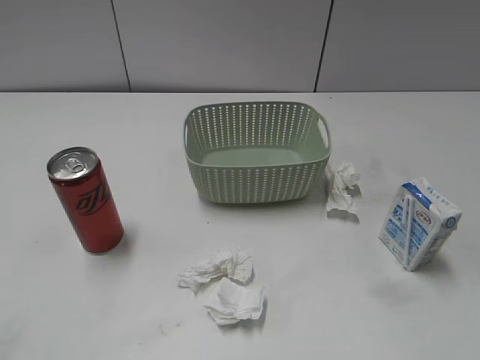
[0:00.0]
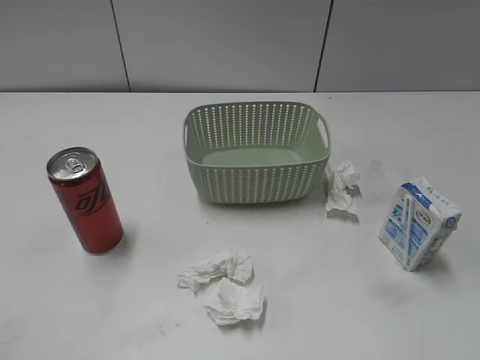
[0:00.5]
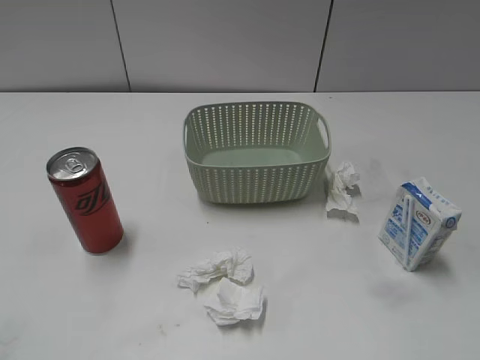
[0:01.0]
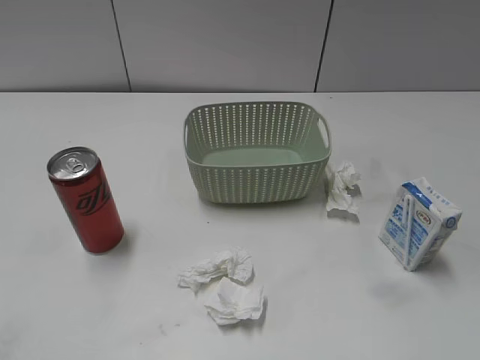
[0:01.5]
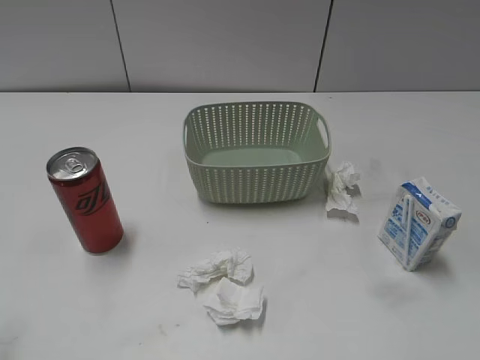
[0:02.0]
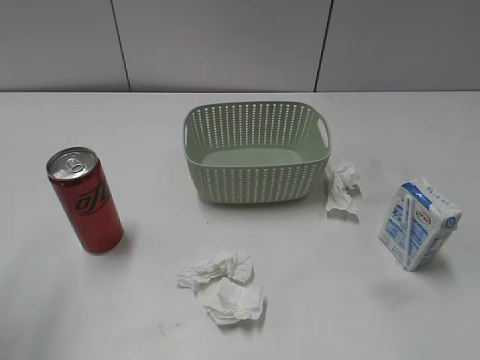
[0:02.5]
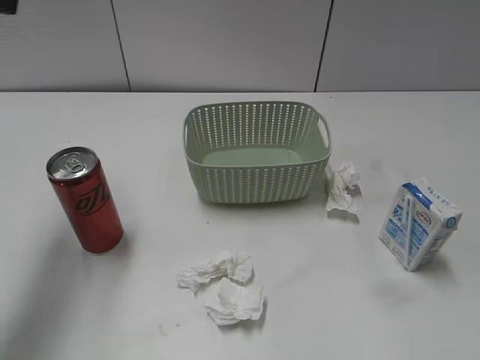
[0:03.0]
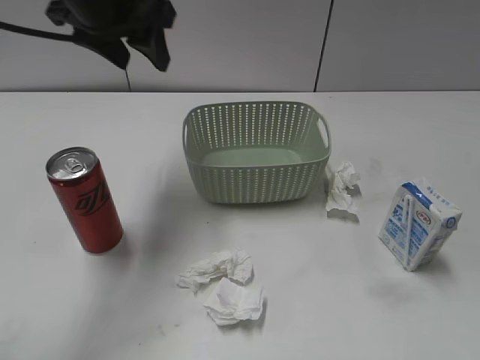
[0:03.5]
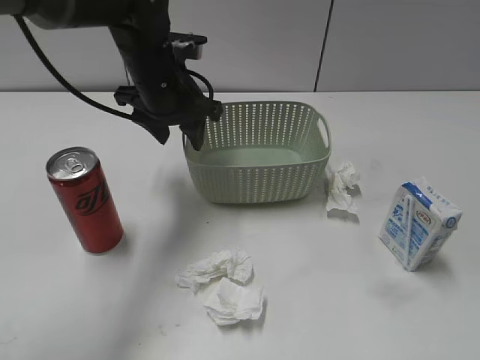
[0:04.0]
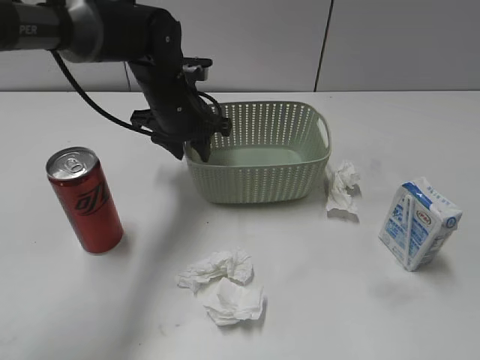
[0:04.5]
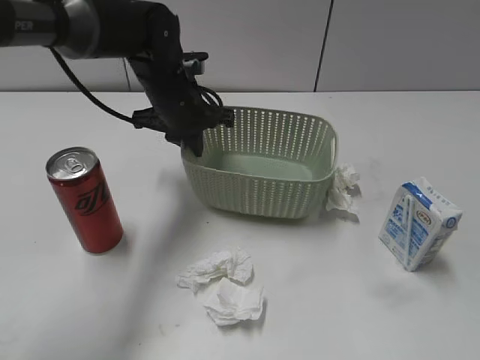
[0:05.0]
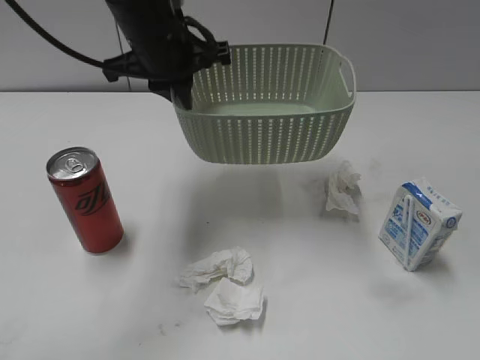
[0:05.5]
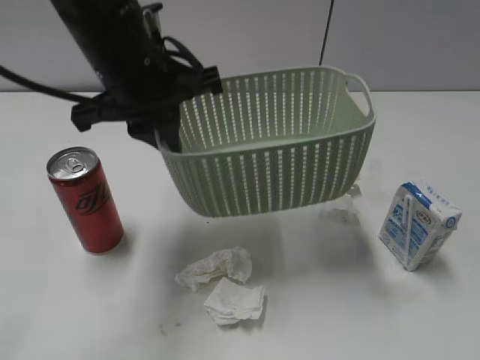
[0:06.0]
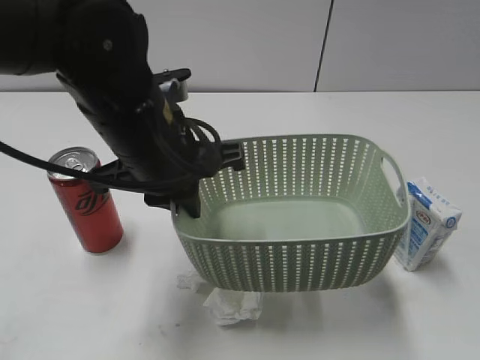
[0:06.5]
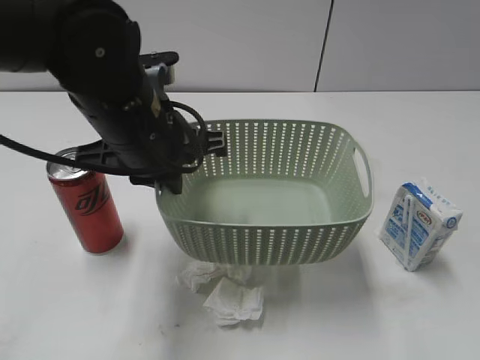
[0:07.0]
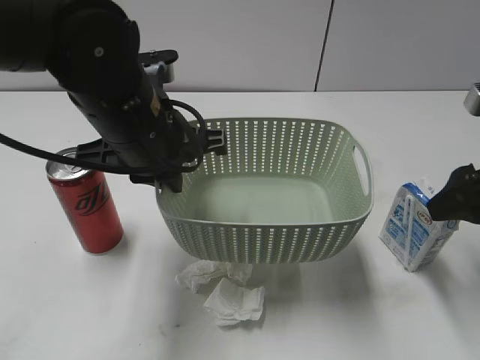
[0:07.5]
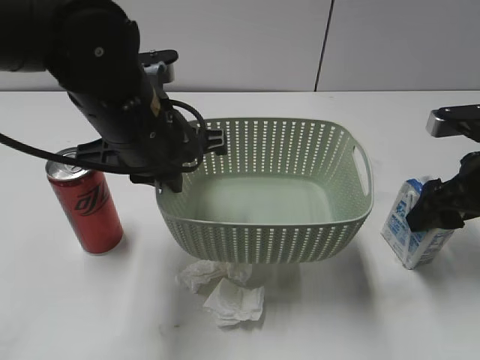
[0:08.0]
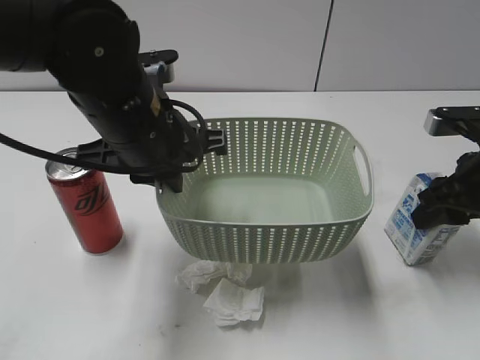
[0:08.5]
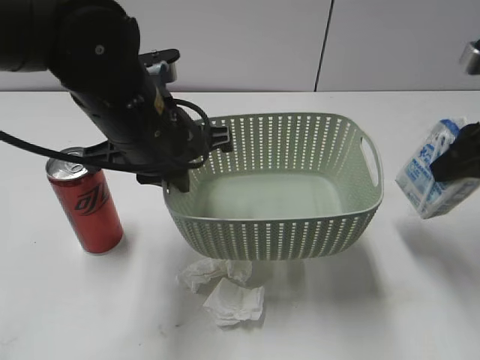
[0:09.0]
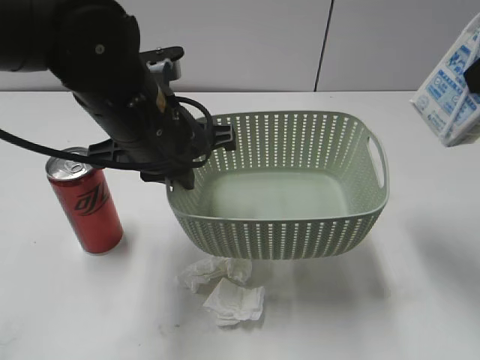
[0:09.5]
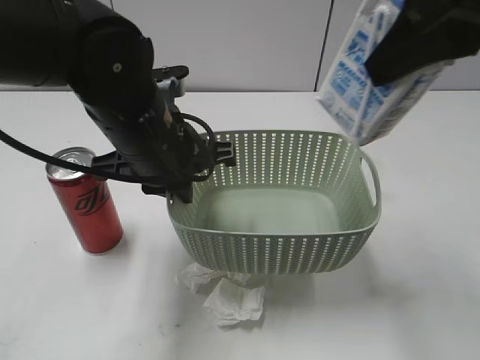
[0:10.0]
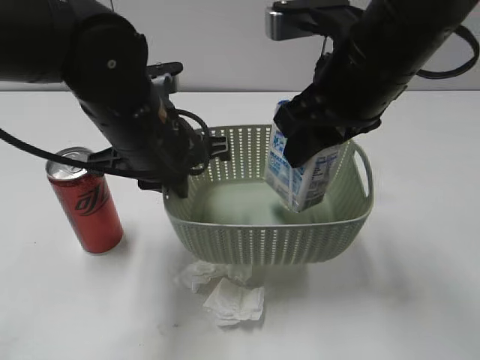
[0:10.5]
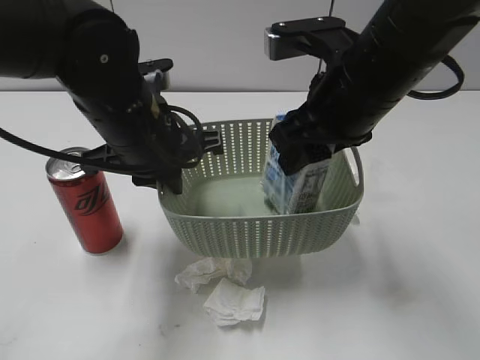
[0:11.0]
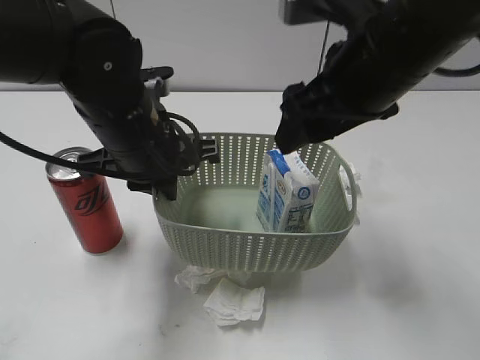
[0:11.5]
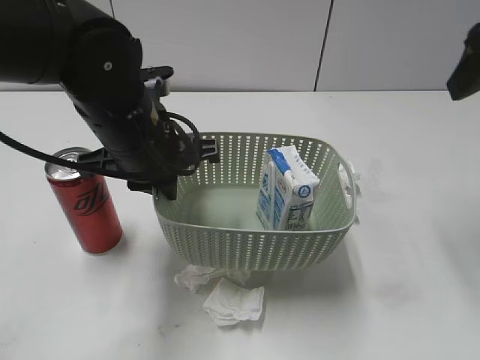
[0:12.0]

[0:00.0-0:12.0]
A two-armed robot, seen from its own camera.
Step, 0:03.0 to 0:04.5: Grasp the basket with left gripper.
Step, 0:05.0 to 0:07.0: Lift the basket with left gripper.
Step, 0:07.5 to 0:08.0: Grasp the milk with right gripper.
Step, 0:08.5 to 0:11.5: Place the milk in the basket with right gripper.
0:02.0 to 0:04.0: The left gripper goes approximately 40 cm forward, to the right and downward.
0:04.0 to 0:06.0: The left gripper shifts roughly 15 cm backward and upward, and closes up.
0:06.0 to 0:08.0: The right gripper travels forward and downward by approximately 30 cm.
0:08.0 to 0:10.0: The right gripper moves upward and to the left, about 25 cm, and closes up.
0:10.0 to 0:12.0: The right gripper is displaced to the right and forward by roughly 10 cm, and opens.

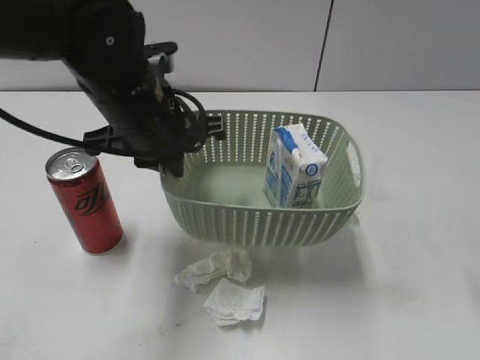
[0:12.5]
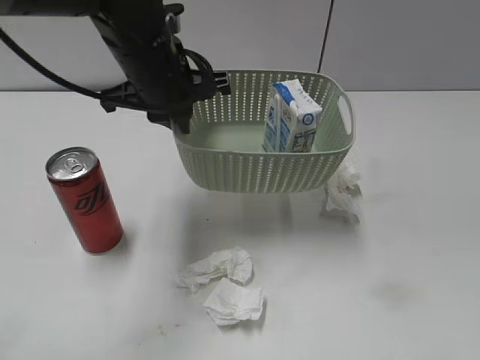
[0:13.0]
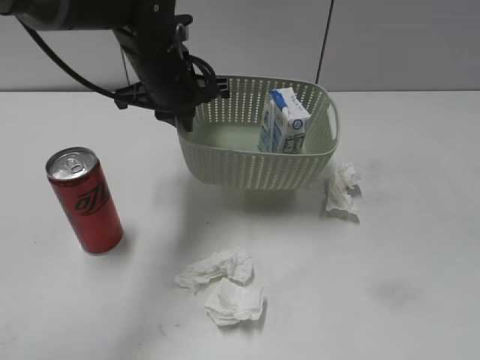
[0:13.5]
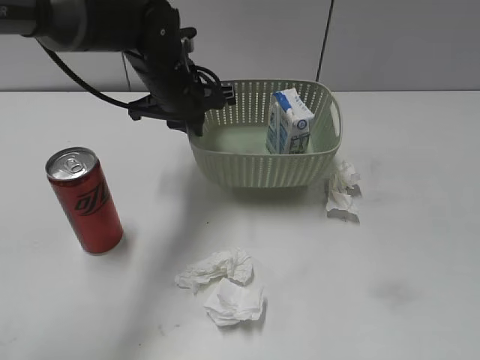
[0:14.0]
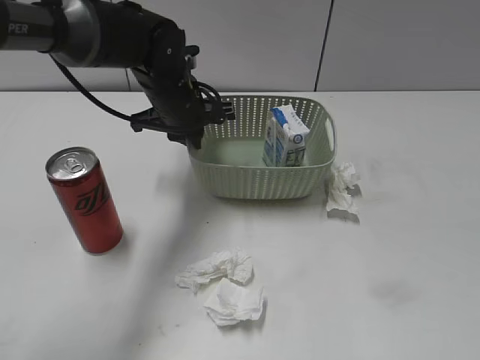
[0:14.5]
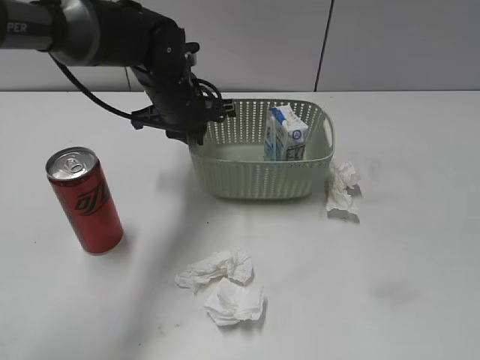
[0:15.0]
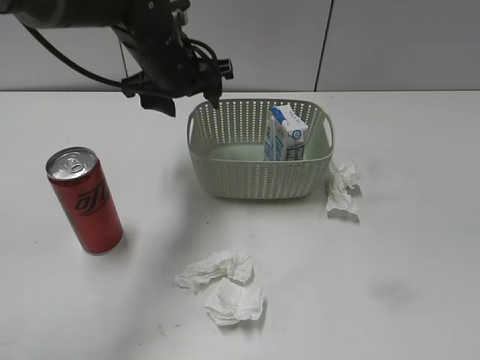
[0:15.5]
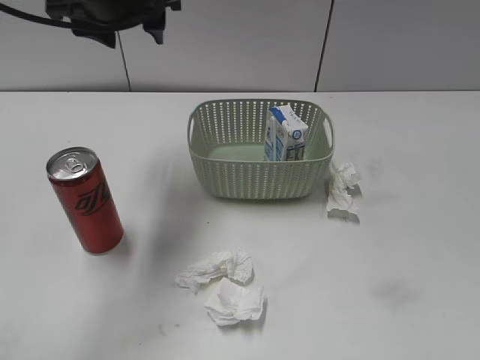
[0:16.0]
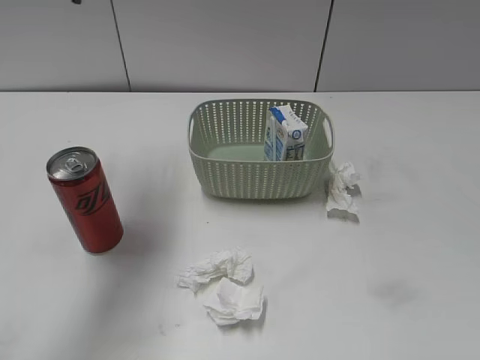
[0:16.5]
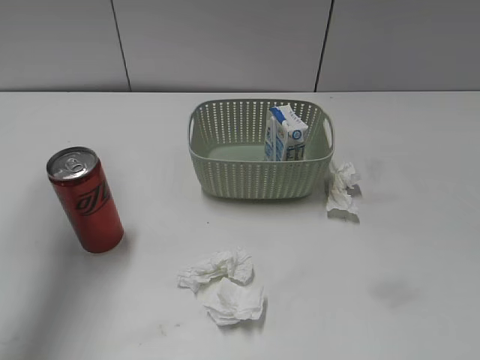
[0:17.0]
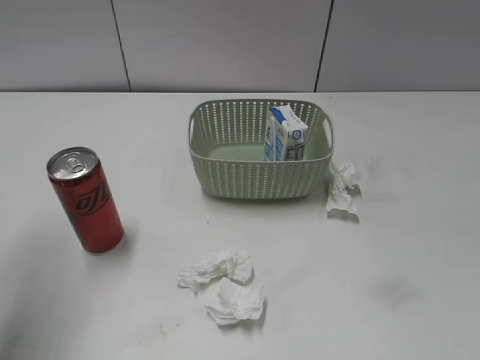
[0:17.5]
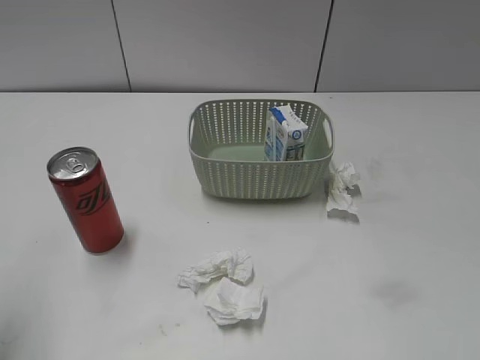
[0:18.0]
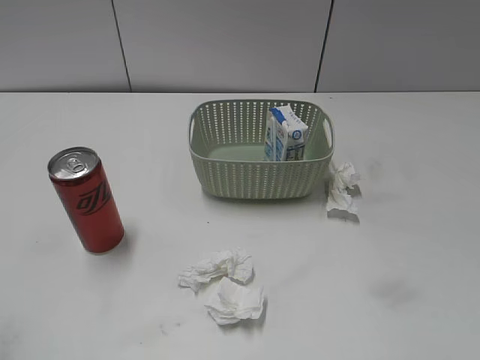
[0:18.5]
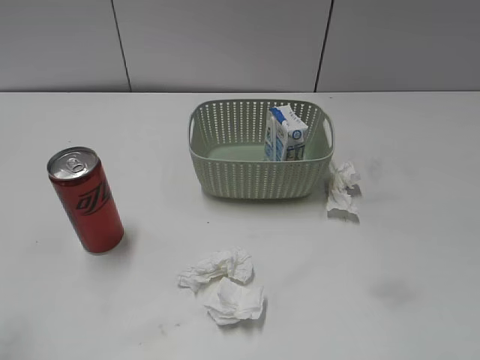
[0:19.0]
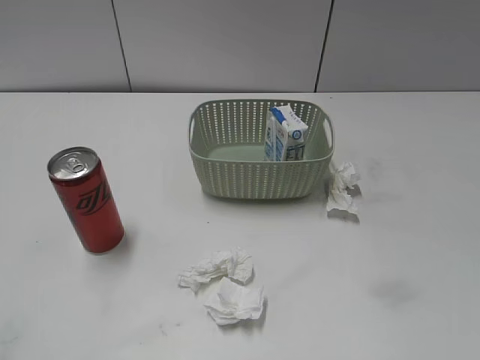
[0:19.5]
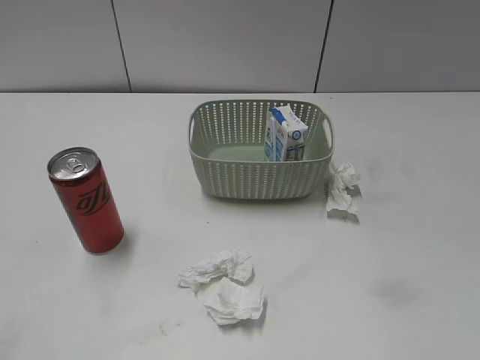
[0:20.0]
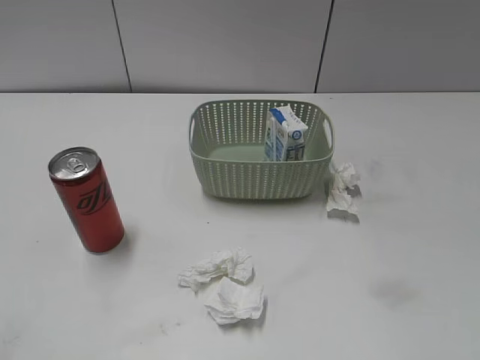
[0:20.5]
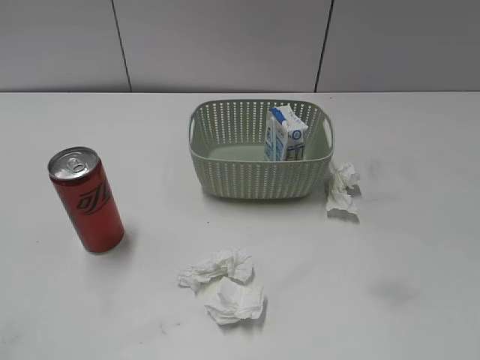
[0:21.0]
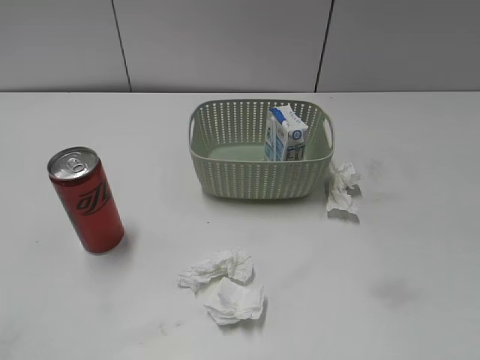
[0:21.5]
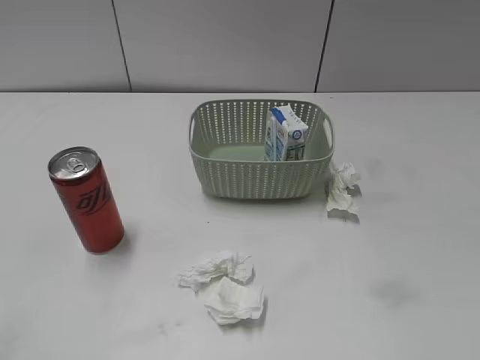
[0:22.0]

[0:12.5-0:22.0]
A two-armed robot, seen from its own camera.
Step, 0:12.5 to 0:15.0: Place the basket on the table with left gripper.
0:12.5 to 0:14.5: The right gripper heads backward, covering roughly 20 cm. Meanwhile the left gripper is displaced forward and downward by roughly 15 cm.
0:14.5 to 0:16.5: The left gripper heads upward and to the left, covering some 25 cm, and opens up.
0:16.5 to 0:18.0: The left gripper shifts about 25 cm backward and to the left, and closes, then reopens.
0:18.0 to 0:20.0: The left gripper moves backward and downward, roughly 20 cm.

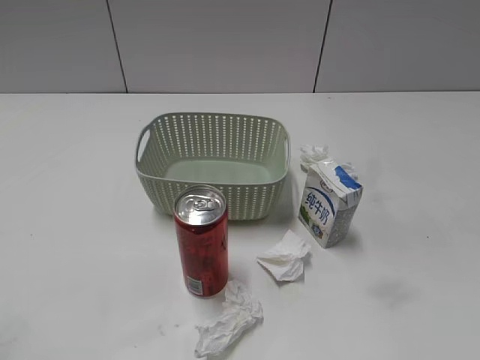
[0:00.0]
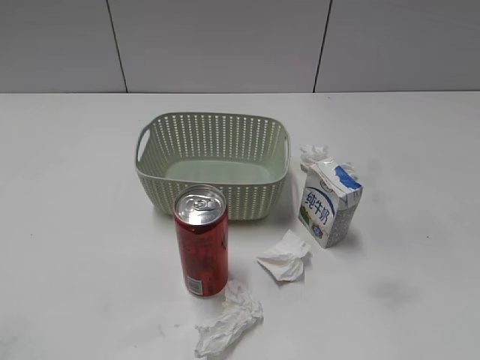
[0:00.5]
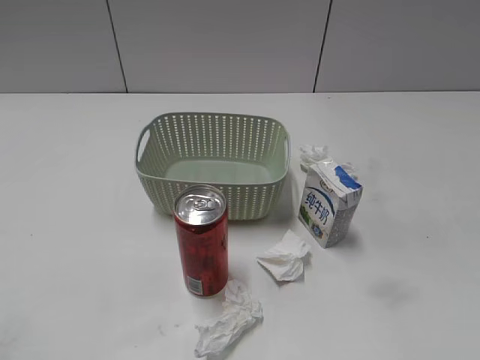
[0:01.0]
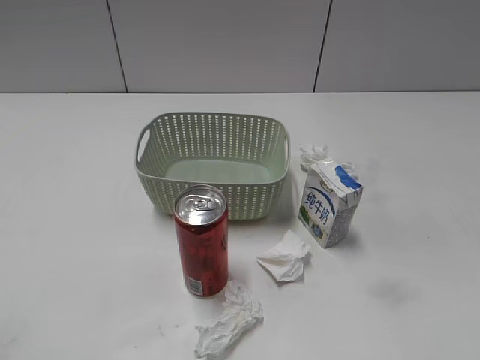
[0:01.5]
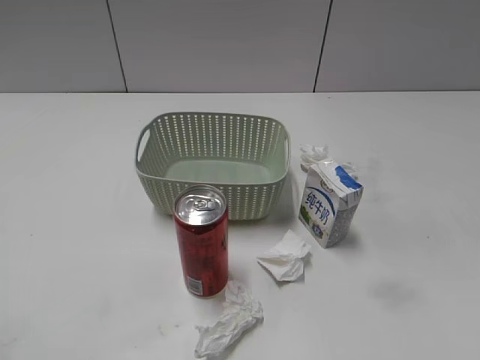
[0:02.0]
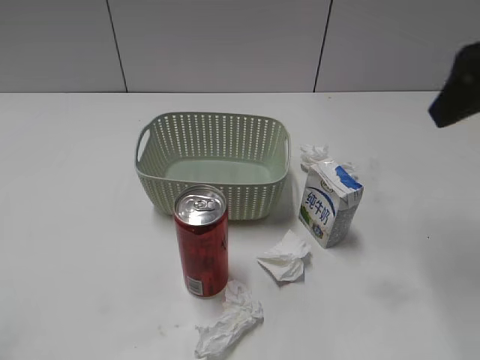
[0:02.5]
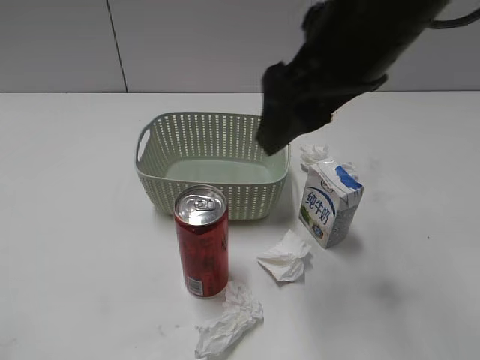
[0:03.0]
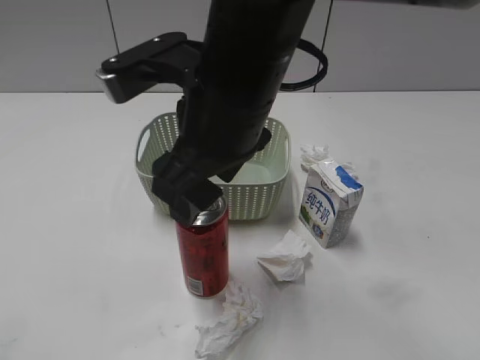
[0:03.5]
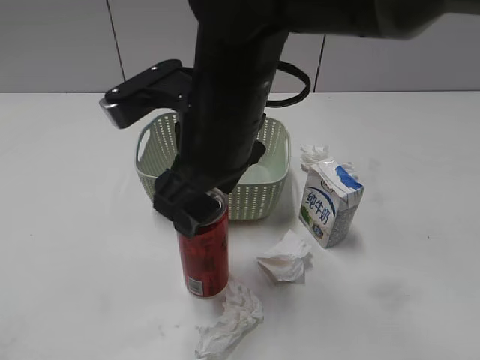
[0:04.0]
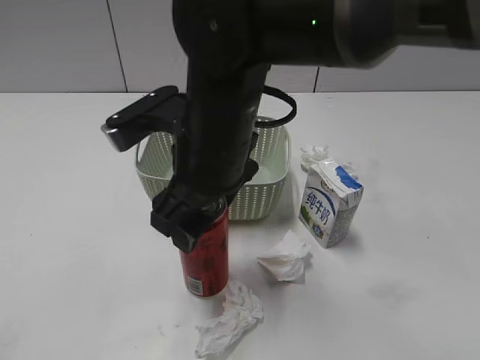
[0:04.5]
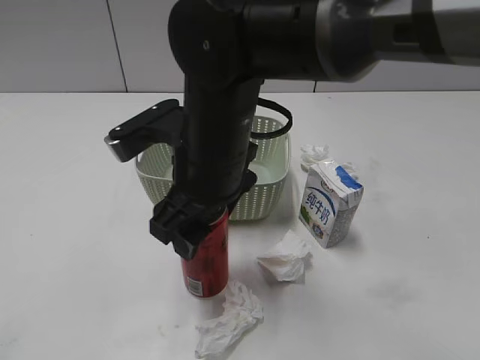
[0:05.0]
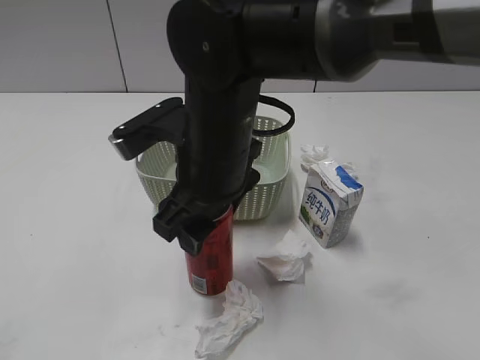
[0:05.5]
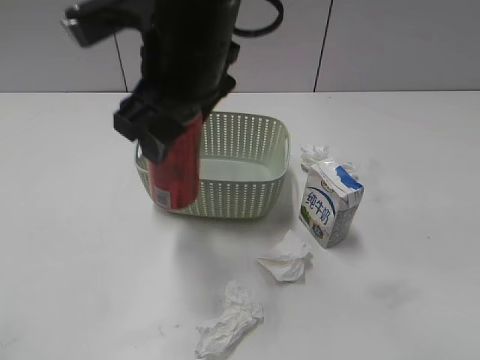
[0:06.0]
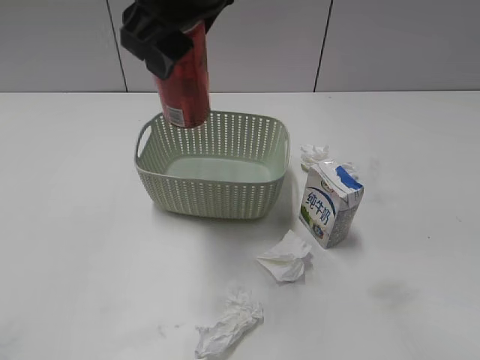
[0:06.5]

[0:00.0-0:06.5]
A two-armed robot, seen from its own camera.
Step, 0:02.5 to 0:05.0: Grasp the cola can with right gripper.
0:02.0 to 0:04.5: The right gripper shifts about 30 cm to the left.
0:04.5 to 0:06.5: The right gripper heads upward, covering some 15 cm.
